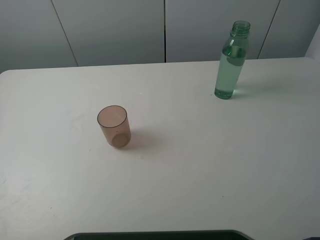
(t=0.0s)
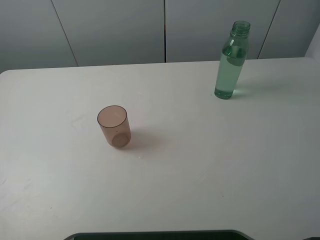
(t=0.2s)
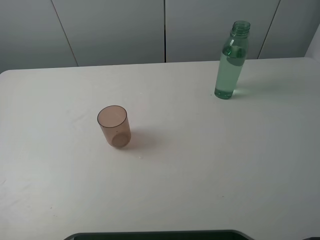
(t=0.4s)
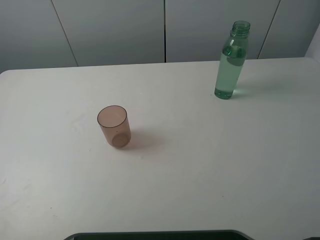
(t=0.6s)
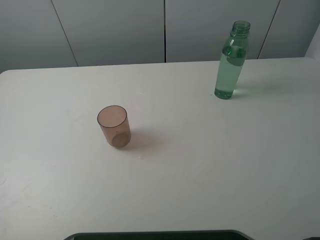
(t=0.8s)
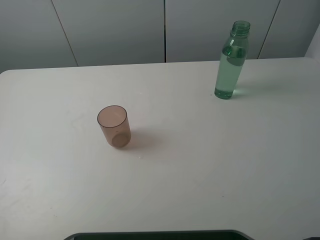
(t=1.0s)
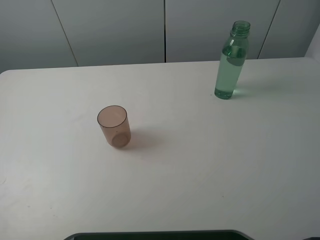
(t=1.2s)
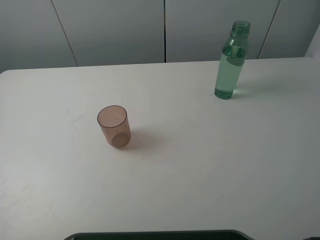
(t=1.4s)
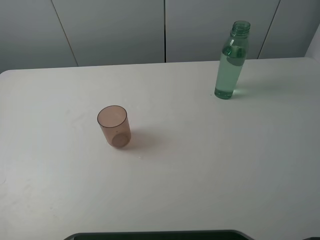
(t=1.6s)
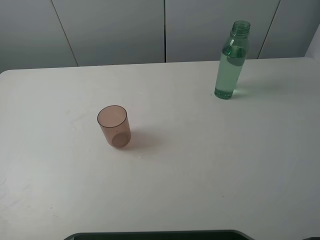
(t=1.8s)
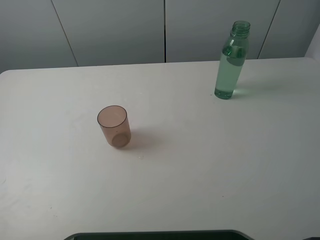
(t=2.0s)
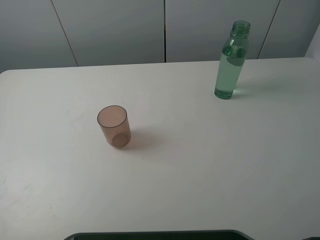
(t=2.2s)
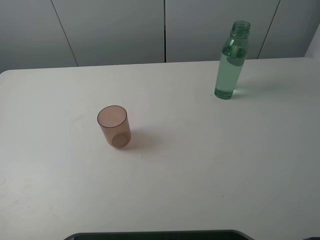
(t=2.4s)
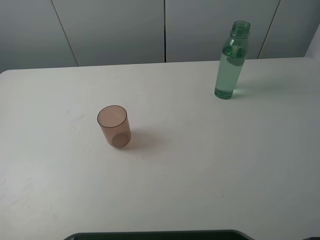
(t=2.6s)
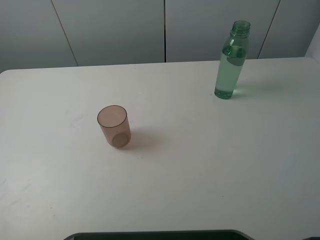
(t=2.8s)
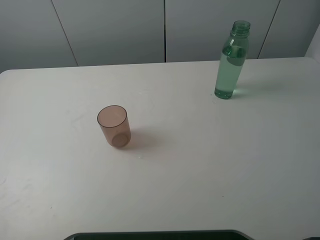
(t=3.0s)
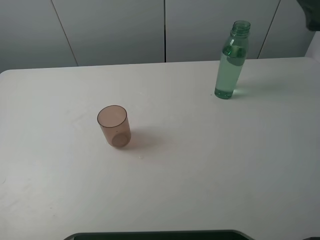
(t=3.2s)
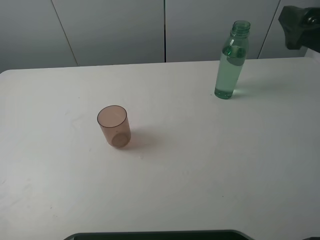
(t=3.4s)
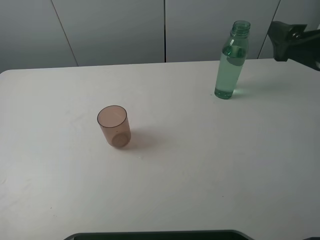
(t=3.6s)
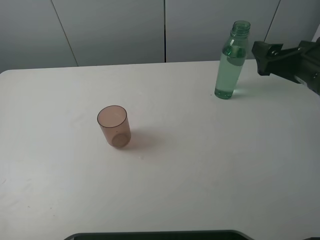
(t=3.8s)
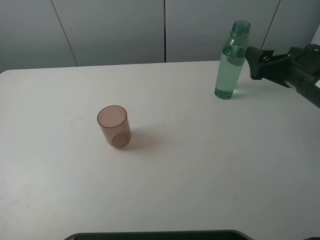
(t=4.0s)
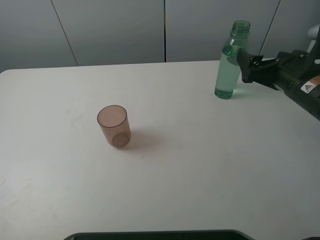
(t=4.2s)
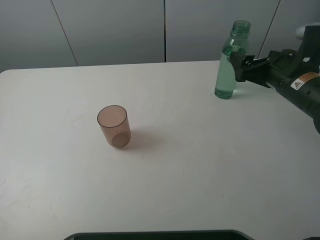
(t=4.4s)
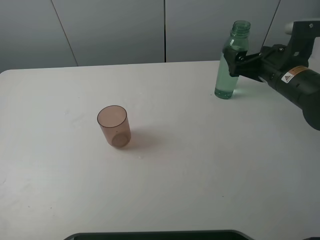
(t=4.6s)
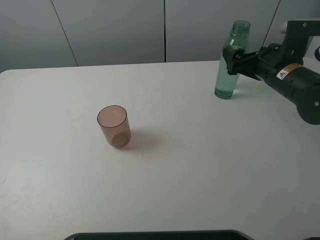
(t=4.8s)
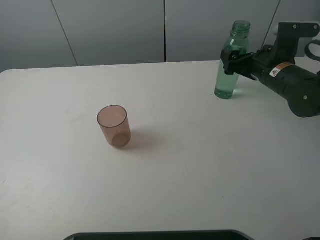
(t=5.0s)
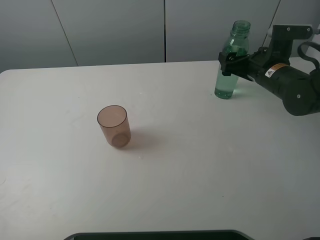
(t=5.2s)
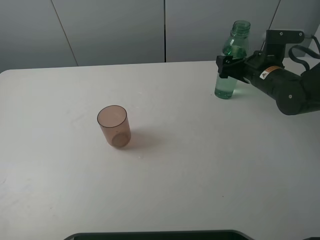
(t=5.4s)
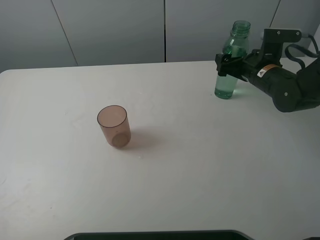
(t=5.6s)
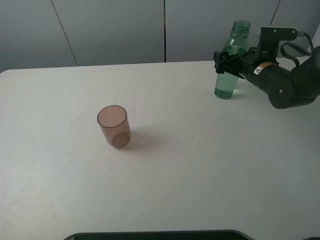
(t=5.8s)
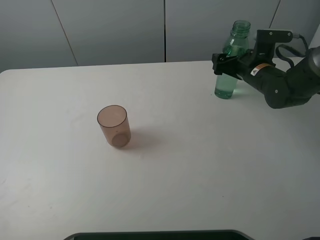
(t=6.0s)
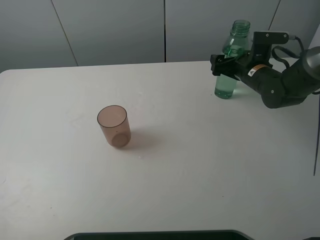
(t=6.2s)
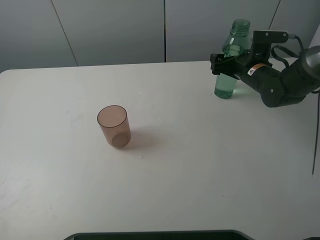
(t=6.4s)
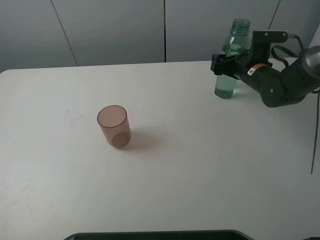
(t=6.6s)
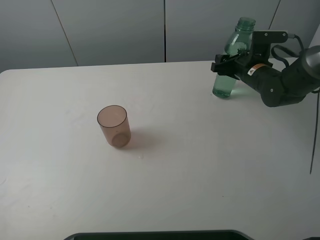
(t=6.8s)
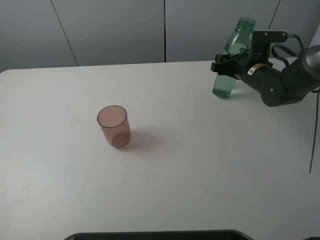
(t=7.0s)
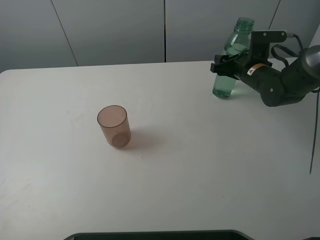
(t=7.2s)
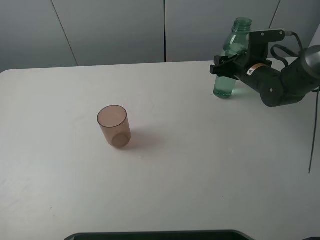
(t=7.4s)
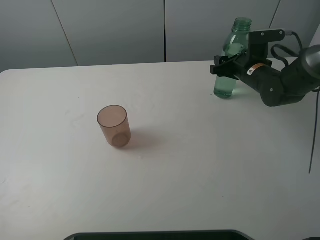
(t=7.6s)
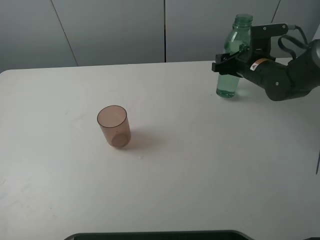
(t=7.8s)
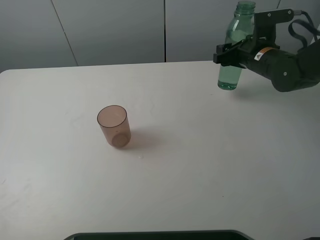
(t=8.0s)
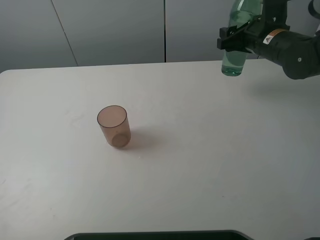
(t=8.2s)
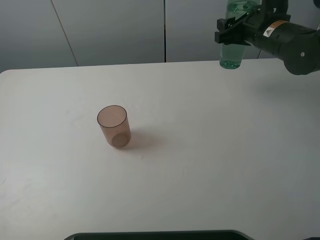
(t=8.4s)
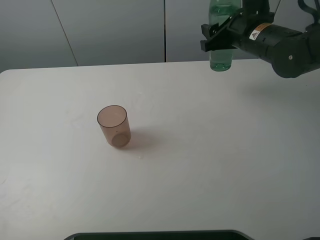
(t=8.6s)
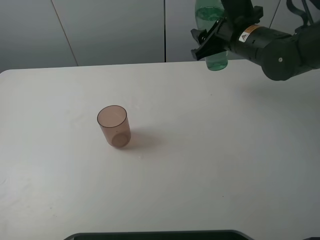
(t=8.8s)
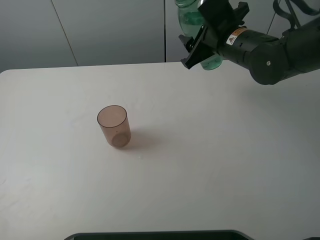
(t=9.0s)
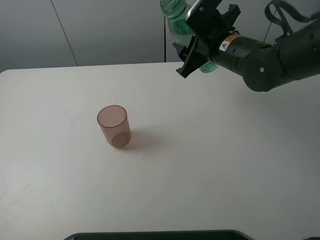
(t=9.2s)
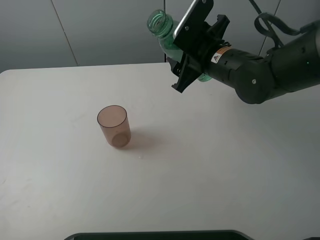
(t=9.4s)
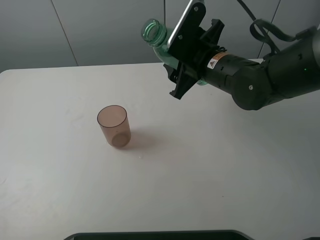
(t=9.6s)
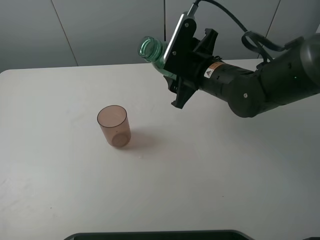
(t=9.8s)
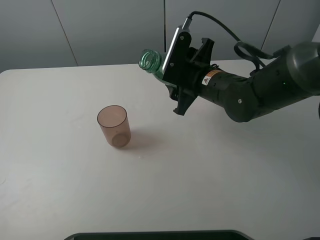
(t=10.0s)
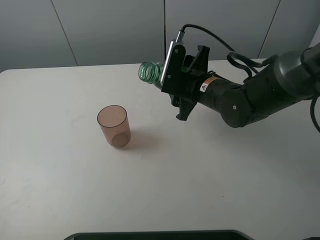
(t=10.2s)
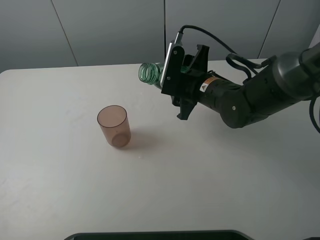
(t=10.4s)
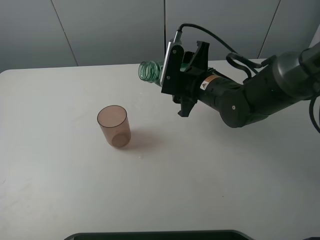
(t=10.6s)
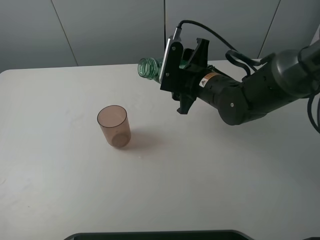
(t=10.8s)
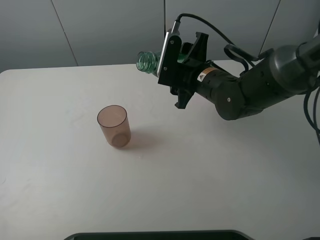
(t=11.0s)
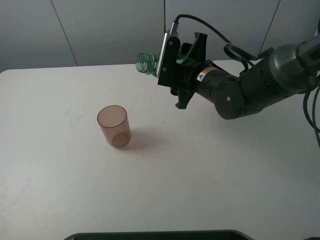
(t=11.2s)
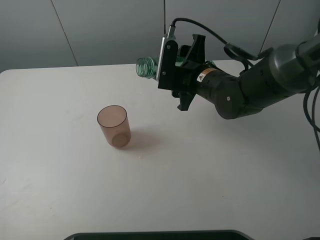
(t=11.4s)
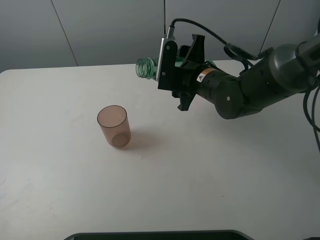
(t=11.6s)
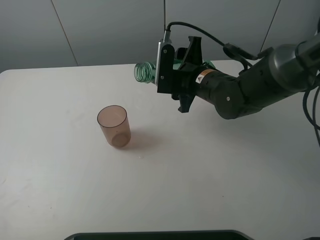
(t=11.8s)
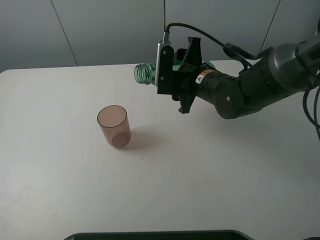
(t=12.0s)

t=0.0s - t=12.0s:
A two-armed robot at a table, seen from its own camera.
Task of the whole recording: pick up the bottle filled with water and pour it into the pink cup.
Step, t=0.0s - t=6.8s: Grasp the green bottle with the right gripper.
t=0.0s - t=1.6s: The two grippers keep their place.
t=3.0s - t=4.4s: The right gripper heads downward and forward, covering about 20 cm.
t=4.4s - t=6.0s: The right gripper moves forward and downward, roughly 10 cm.
t=6.0s - t=7.6s: The right gripper closes up.
t=7.6s - t=9.0s: The right gripper goes roughly 15 cm upward and to the left.
t=9.0s - t=10.4s: The right gripper shifts some 5 cm downward.
t=10.4s - t=12.0s: The grippers make only small movements.

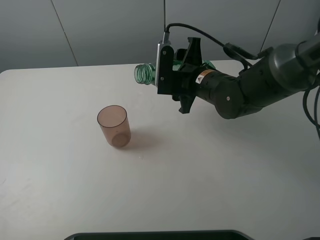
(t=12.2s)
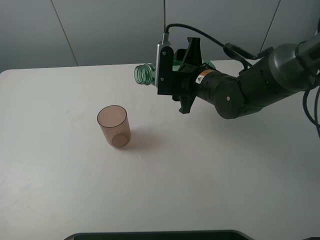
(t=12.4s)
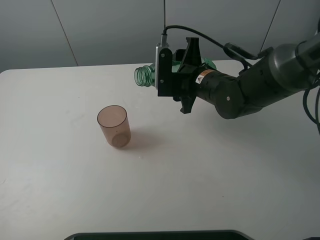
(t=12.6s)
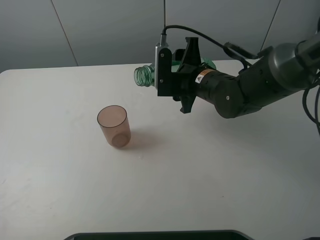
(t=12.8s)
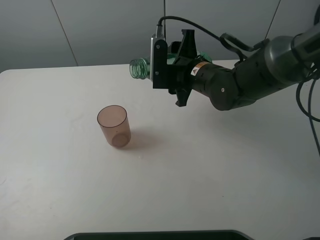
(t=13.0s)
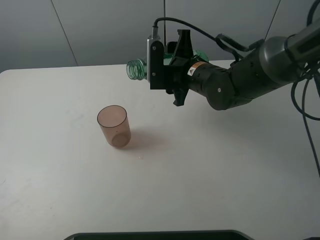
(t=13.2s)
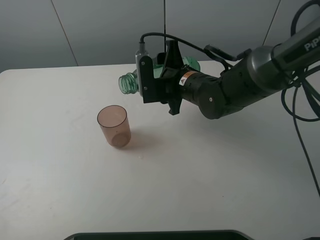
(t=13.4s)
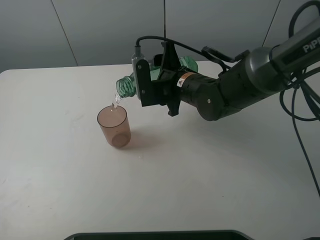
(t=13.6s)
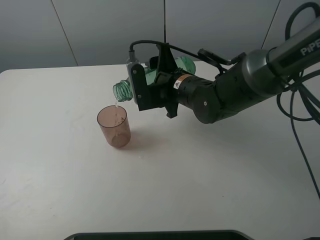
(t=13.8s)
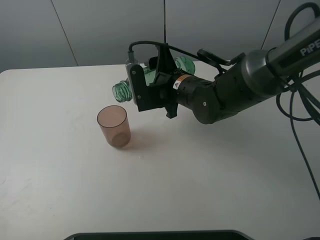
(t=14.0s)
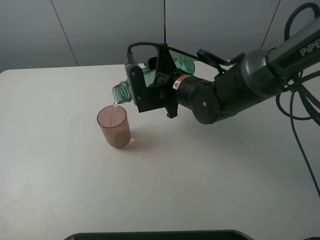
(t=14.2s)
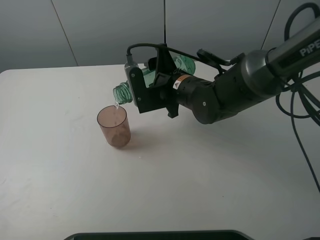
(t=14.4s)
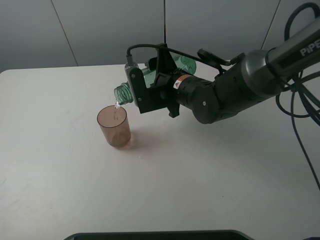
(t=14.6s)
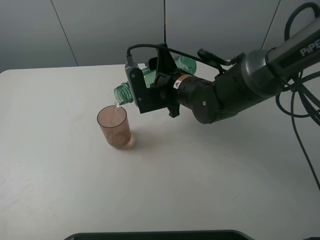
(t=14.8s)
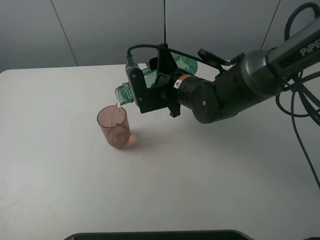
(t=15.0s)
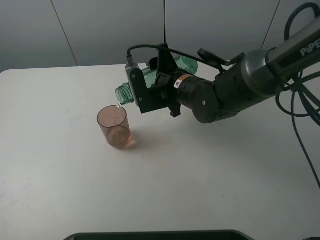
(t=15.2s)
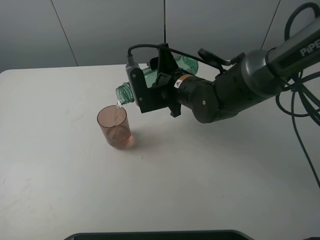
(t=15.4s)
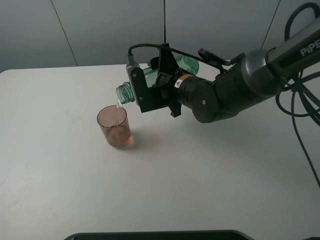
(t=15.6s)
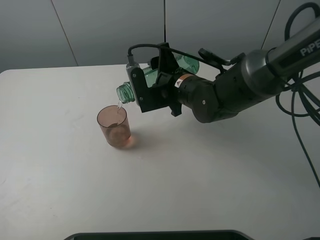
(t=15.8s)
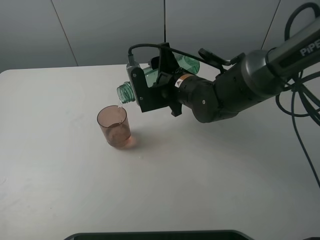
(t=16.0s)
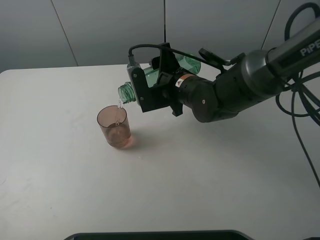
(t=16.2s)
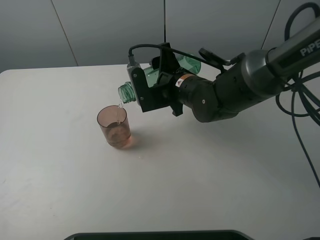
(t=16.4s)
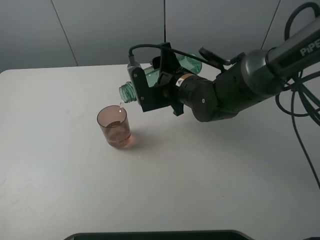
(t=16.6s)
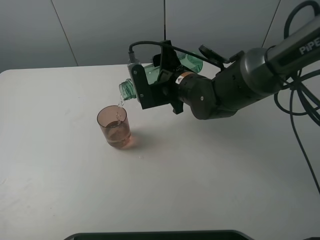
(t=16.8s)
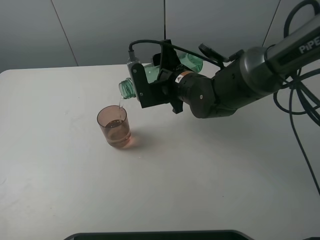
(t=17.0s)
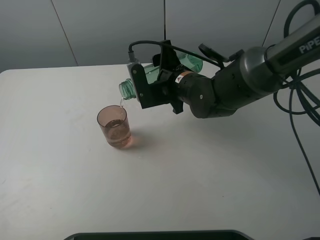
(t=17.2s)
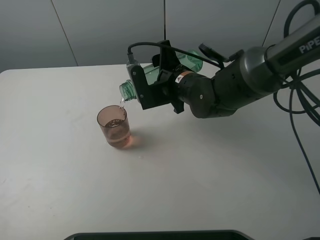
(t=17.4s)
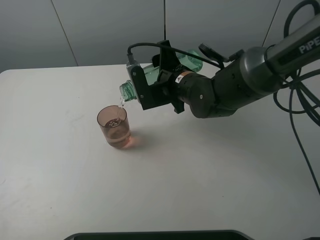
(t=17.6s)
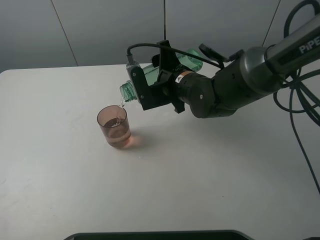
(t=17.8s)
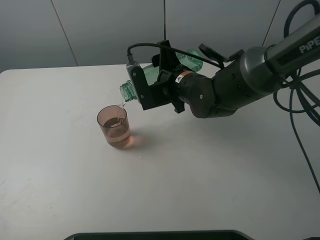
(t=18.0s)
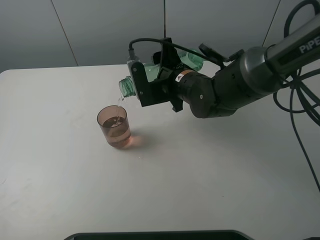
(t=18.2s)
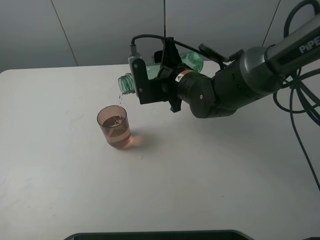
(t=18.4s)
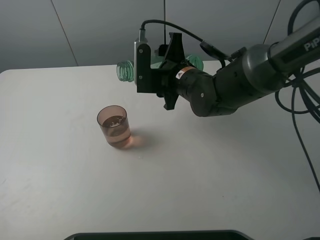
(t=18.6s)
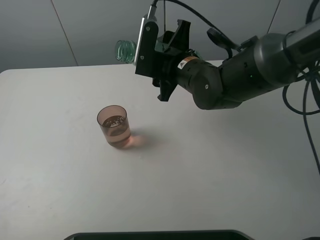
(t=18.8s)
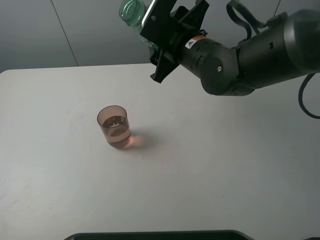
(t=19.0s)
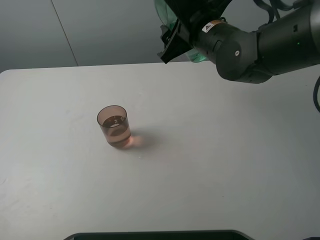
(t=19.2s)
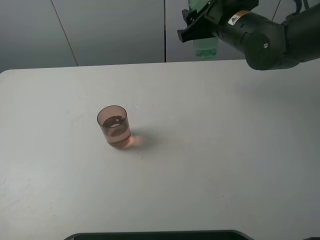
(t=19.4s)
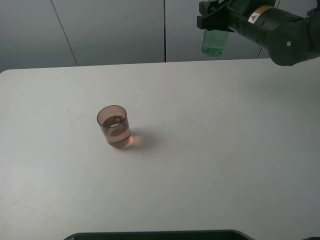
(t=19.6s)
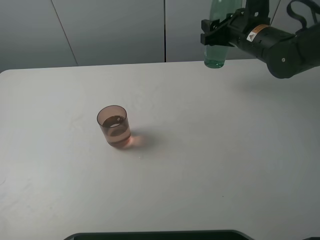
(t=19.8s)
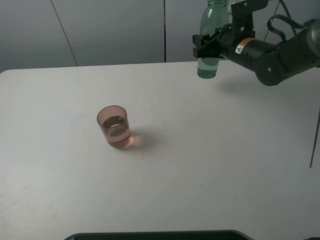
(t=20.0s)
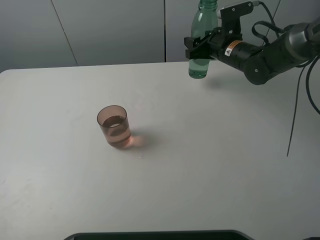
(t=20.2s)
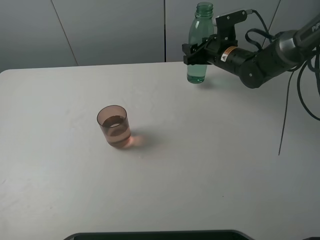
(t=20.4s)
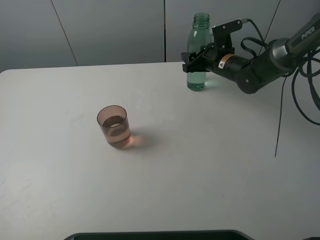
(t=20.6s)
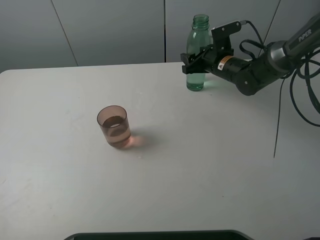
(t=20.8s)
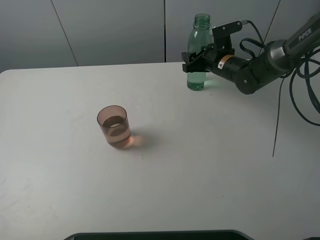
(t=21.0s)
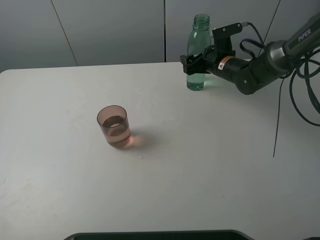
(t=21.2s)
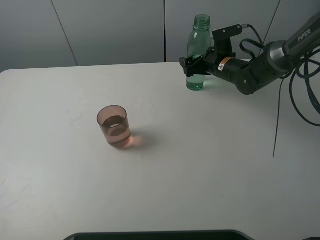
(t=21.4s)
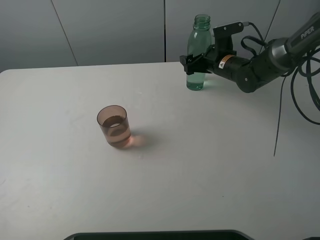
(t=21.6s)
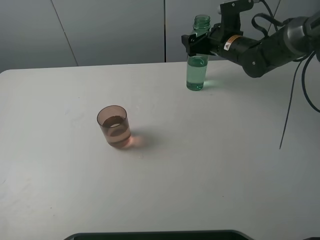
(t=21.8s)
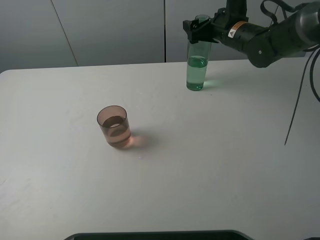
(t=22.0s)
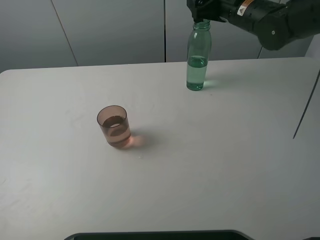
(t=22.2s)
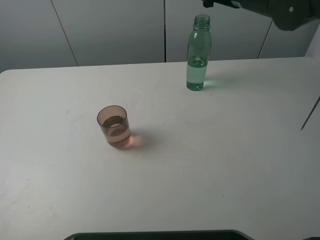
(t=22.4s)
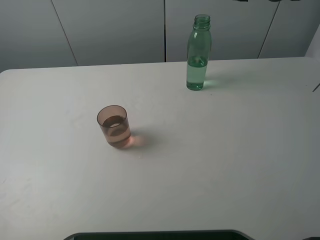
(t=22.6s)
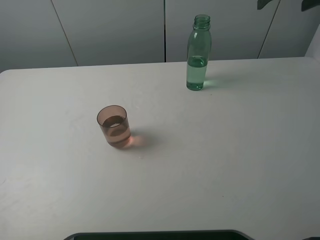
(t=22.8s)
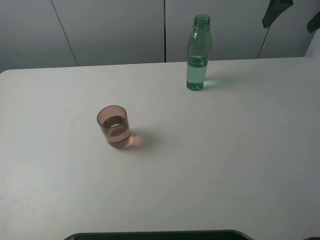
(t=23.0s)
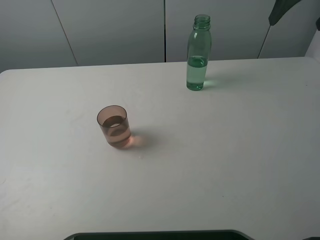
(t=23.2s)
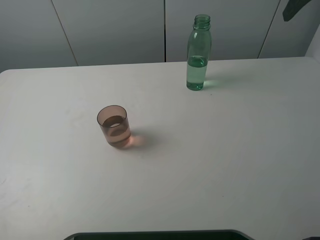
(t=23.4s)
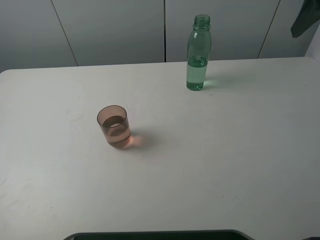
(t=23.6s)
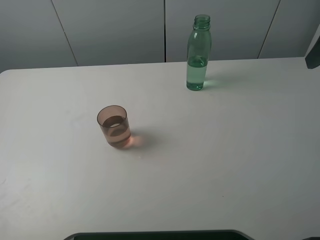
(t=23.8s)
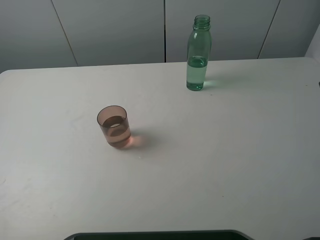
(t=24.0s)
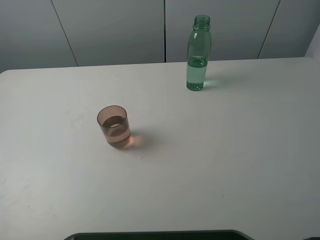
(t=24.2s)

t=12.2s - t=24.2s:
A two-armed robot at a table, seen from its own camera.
Task of the whole recording: pick up the bottle filled with water and pour it into the pink cup.
Step, t=12.2s - t=18.6s: Pour water from green bottle to pink cup with the right gripper.
Step, t=18.8s - t=21.8s: Place the green bottle with the right gripper.
t=12.2s - t=13.8s: The grippers move only a little.
t=13.8s - t=15.2s: The two grippers keep their place.
t=15.2s - t=16.6s: Both grippers stay about where they are.
t=16.6s - t=18.2s: Both grippers stay about where they are.
t=18.2s - t=19.8s: The right gripper shifts some 15 cm to the right and forward.
t=19.8s - t=21.2s: The right gripper goes about 10 cm downward, and opens.
t=21.2s - t=22.6s: The right gripper shifts approximately 25 cm upward and to the right.
